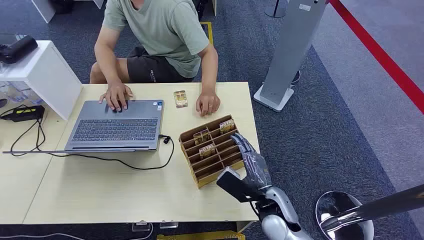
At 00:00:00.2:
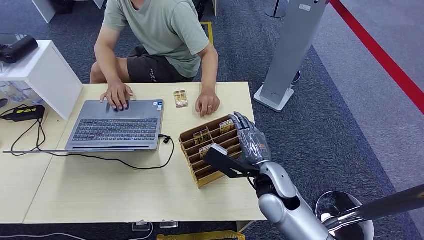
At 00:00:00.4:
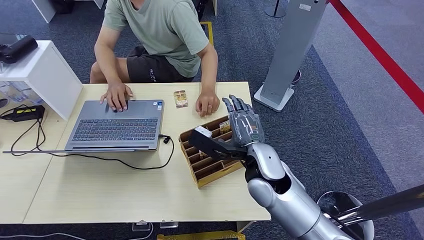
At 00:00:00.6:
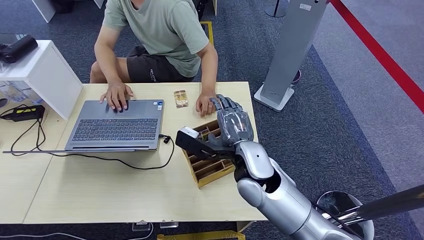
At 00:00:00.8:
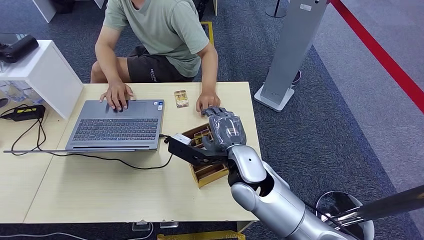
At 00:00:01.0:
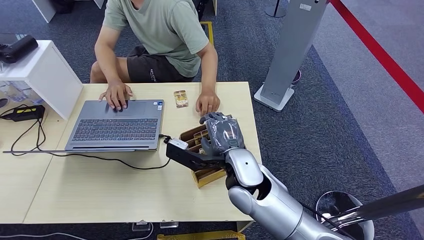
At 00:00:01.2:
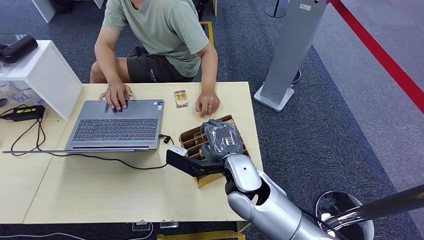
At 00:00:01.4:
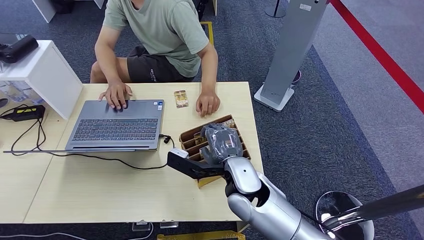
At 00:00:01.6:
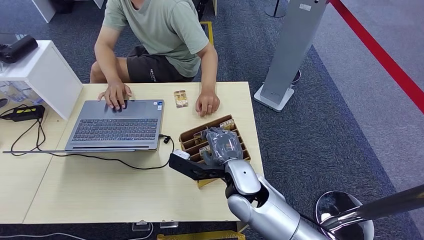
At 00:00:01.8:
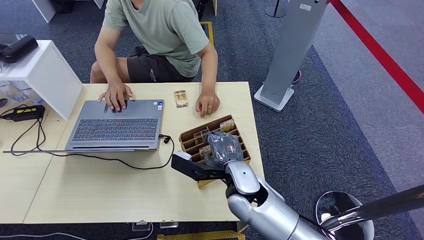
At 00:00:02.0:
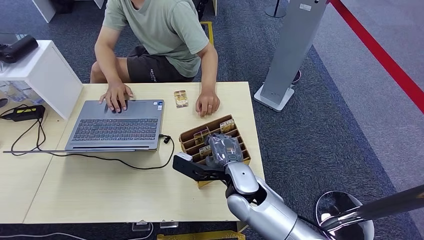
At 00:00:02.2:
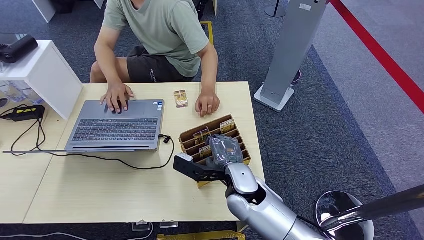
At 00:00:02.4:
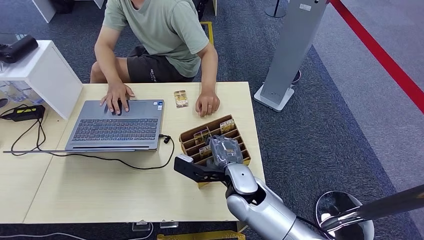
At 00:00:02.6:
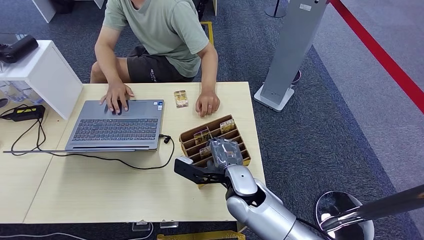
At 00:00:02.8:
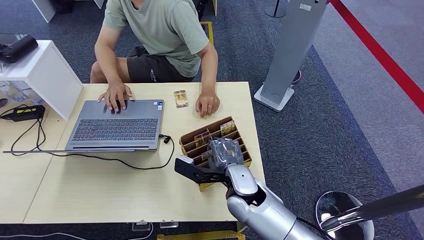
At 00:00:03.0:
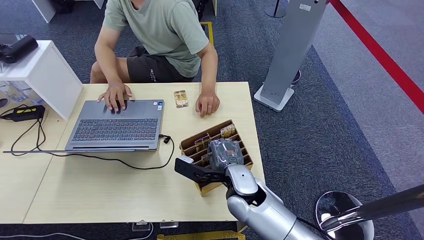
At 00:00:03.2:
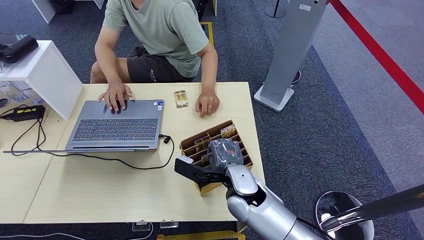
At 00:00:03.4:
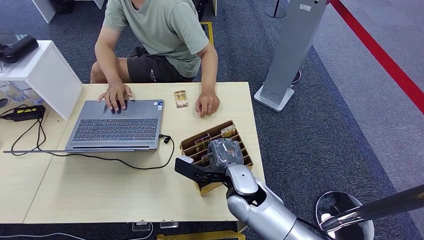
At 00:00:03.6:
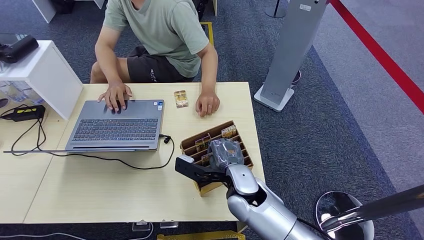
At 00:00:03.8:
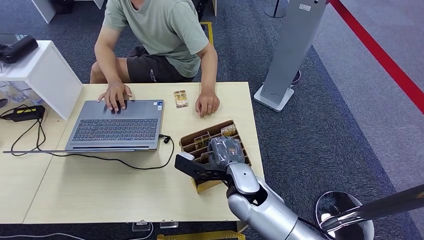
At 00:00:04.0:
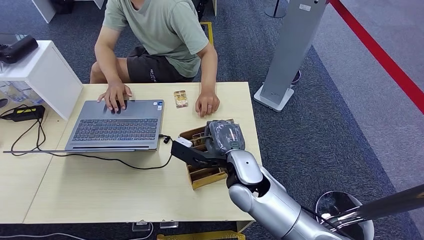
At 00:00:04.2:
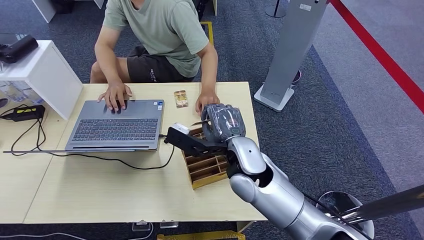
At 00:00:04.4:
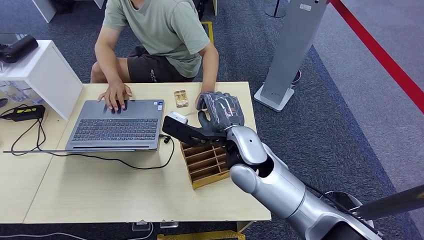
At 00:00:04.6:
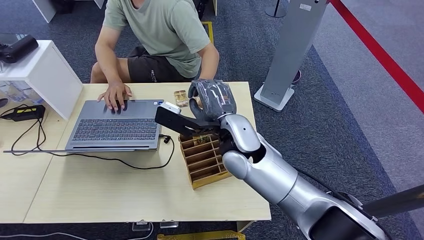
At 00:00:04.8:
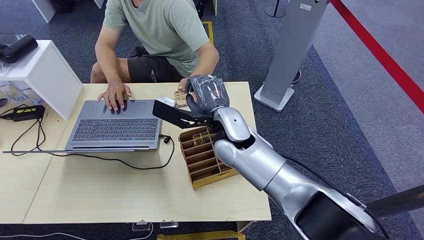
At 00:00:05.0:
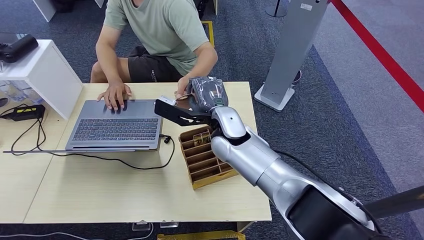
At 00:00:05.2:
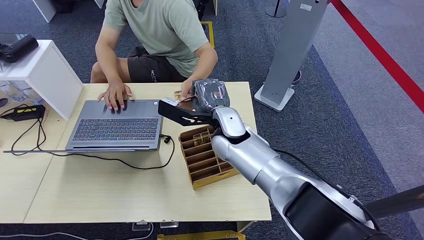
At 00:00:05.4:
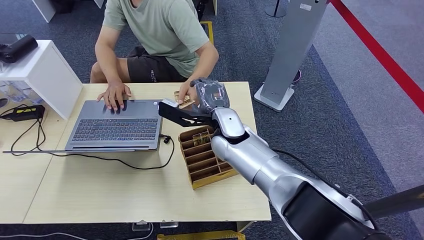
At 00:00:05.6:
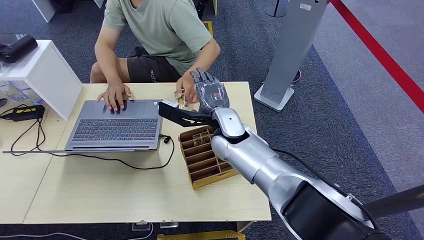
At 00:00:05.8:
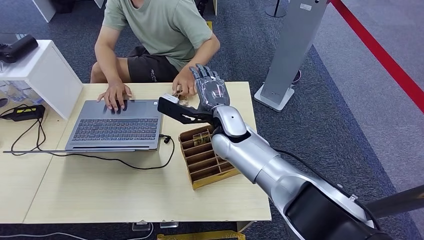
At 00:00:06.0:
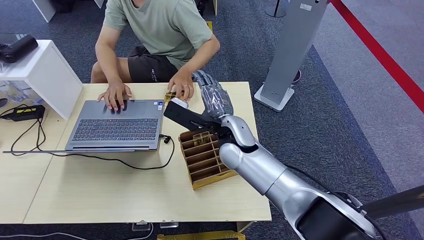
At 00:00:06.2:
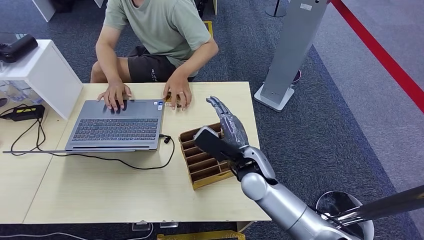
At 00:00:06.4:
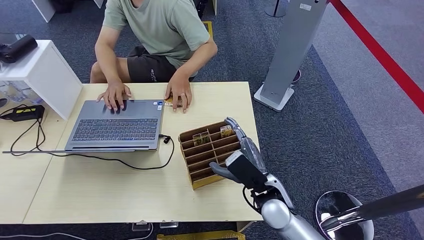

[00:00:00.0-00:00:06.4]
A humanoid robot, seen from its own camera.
Step, 00:00:00.0 to 00:00:04.2: Pick up the room card from the card holder.
Step, 00:00:04.4 to 00:00:06.4: Hand the room card to the target.
00:00:01.6 to 00:00:03.2: The hands make only small movements.
00:00:03.2 to 00:00:04.8: The right hand goes roughly 15 cm upward and forward.
00:00:04.8 to 00:00:06.4: The right hand is displaced downward, to the right and backward by about 20 cm.

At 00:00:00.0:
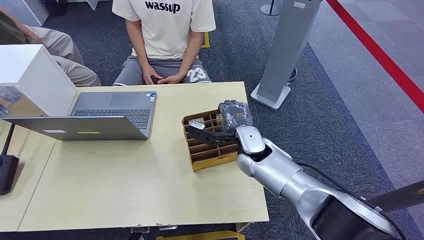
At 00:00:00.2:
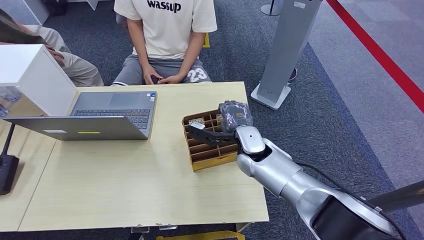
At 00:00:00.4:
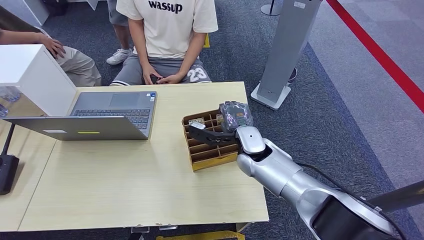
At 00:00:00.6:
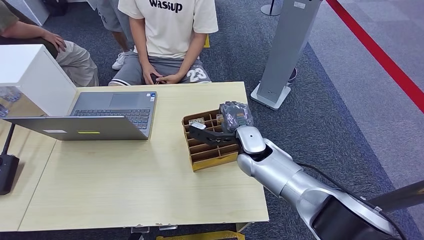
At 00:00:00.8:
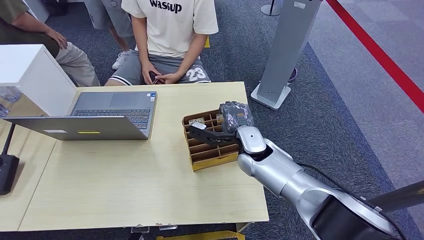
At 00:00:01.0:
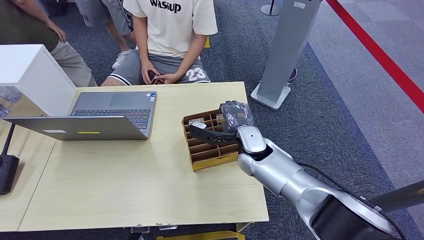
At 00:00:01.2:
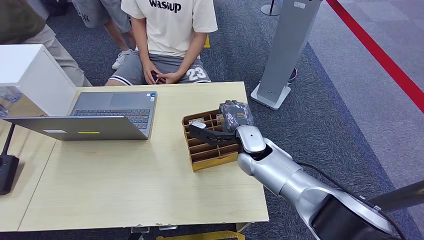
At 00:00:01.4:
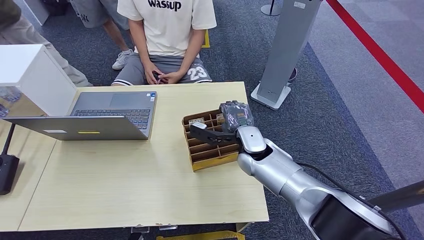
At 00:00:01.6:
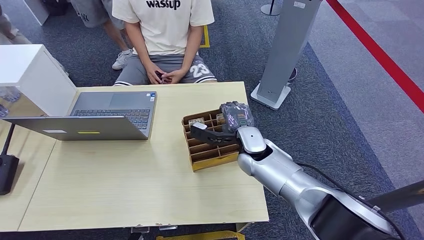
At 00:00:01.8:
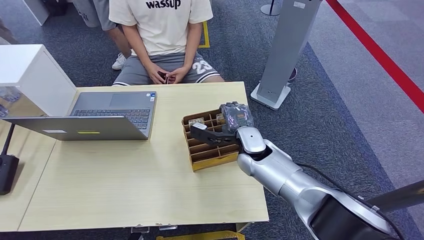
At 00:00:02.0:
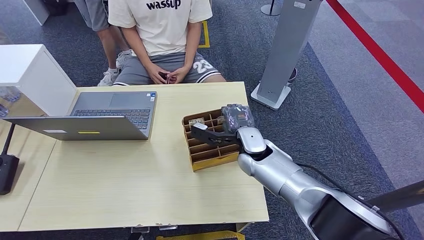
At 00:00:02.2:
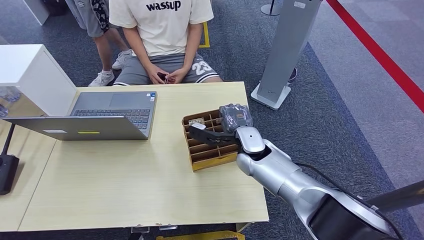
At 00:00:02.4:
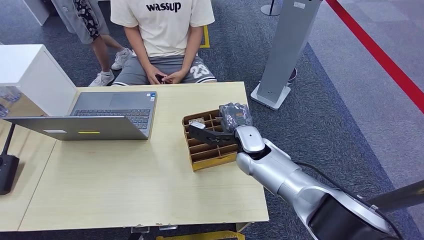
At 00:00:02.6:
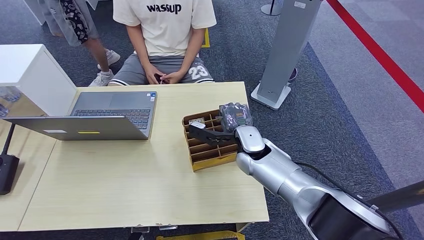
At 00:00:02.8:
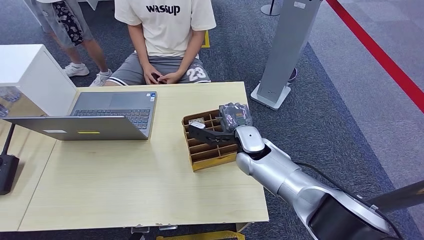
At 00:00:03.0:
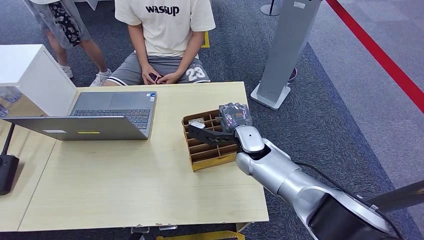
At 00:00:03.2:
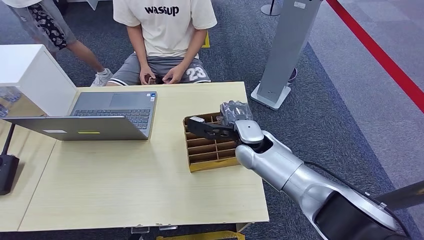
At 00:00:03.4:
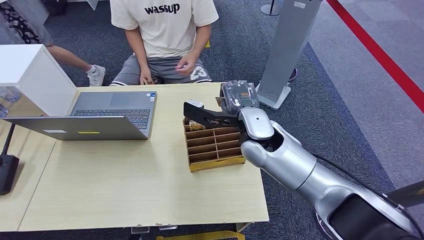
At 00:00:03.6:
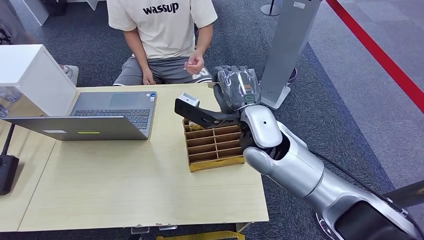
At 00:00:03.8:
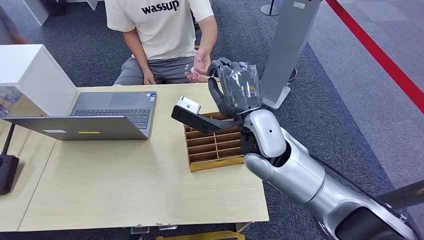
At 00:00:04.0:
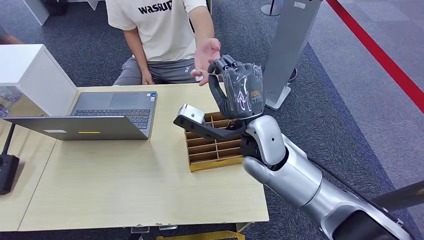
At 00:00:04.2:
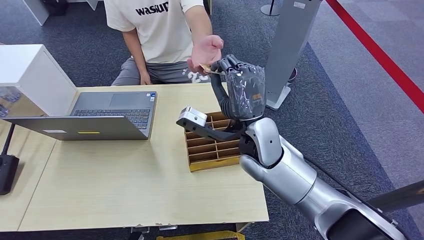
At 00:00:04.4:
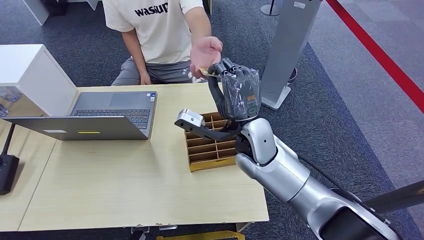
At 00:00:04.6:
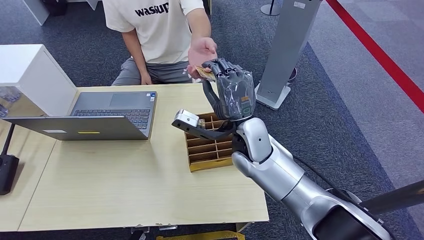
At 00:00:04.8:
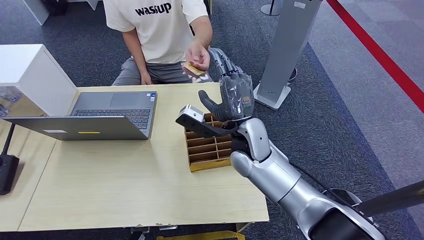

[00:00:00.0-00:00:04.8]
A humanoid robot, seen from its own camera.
Step, 00:00:00.0 to 00:00:02.8: Pick up the room card from the card holder.
Step, 00:00:03.6 to 00:00:04.8: Hand the room card to the target.
00:00:01.6 to 00:00:03.2: The two hands keep their place.
00:00:03.2 to 00:00:04.8: The right hand heads upward, covering approximately 5 cm.
